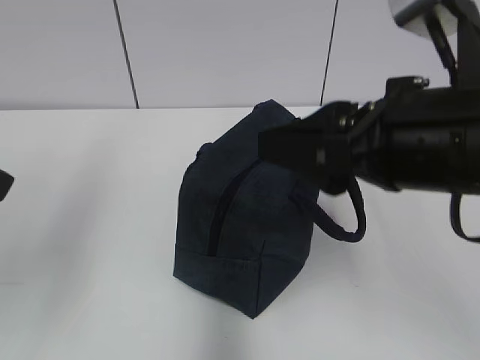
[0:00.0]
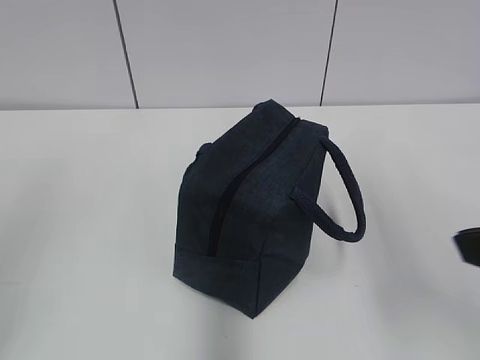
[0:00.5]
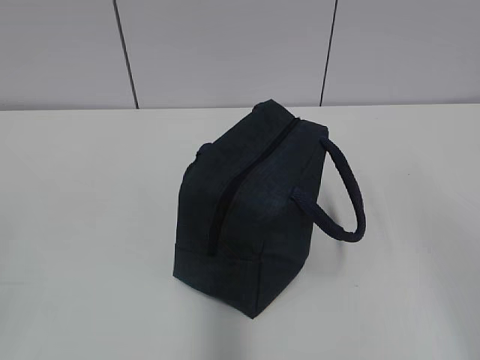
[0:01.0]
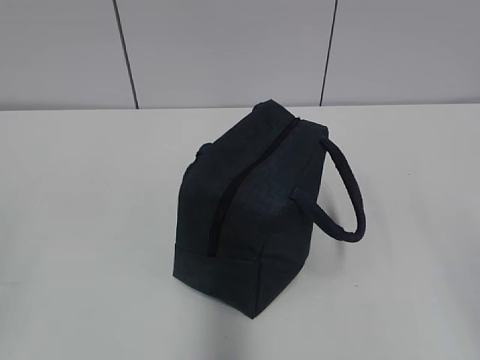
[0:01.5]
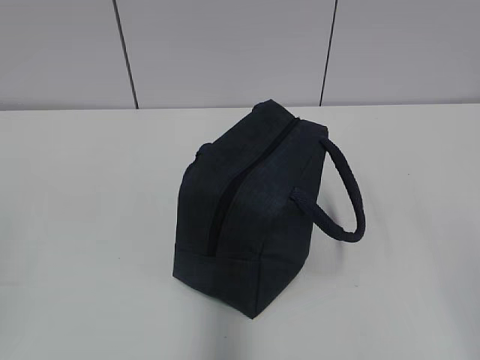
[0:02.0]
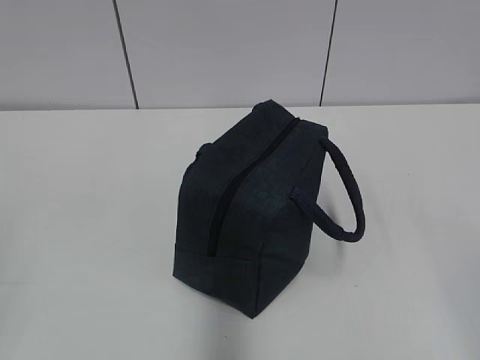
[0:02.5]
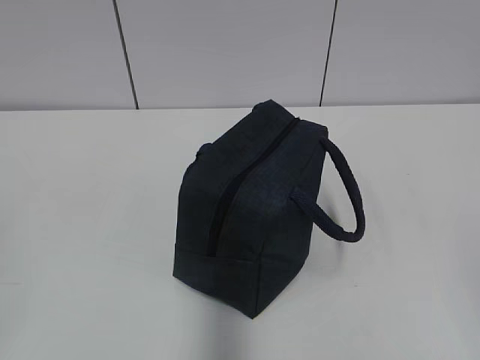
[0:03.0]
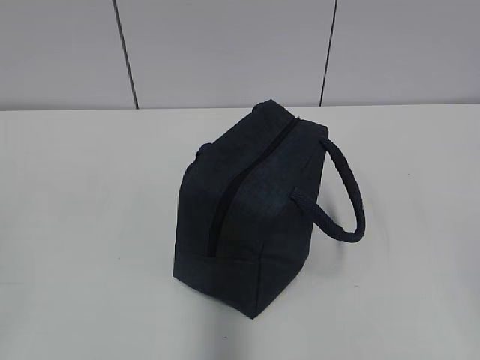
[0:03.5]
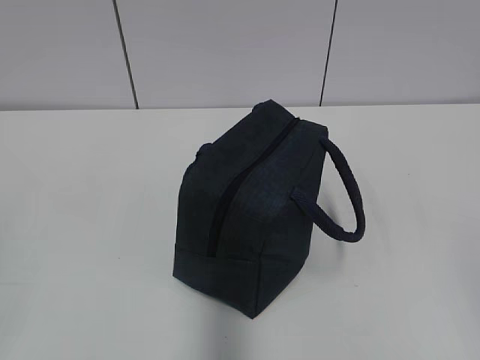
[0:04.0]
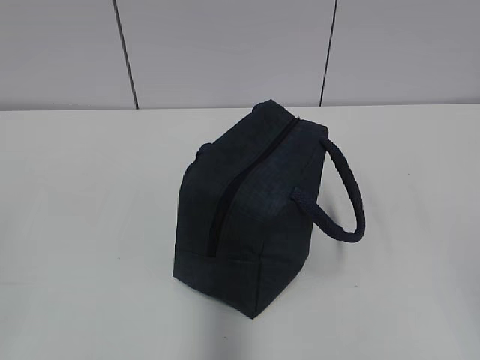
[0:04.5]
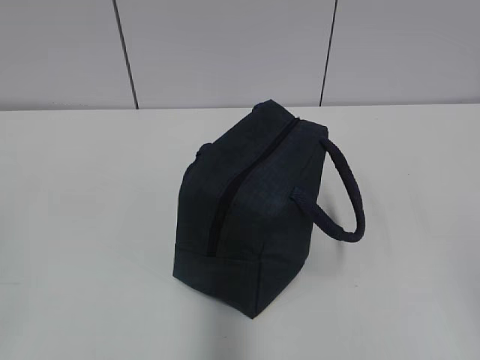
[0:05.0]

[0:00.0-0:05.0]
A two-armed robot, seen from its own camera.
0:00.0 to 0:02.5: The right gripper shifts approximately 25 cm backward and to the right. The left gripper travels backward and to the left by some 20 cm.
